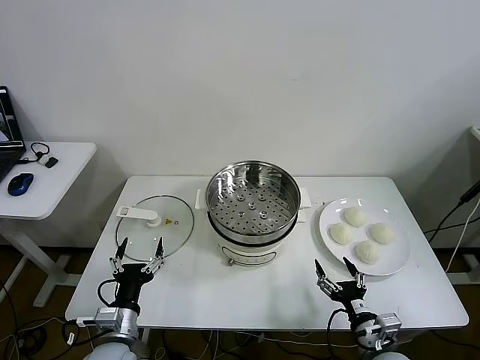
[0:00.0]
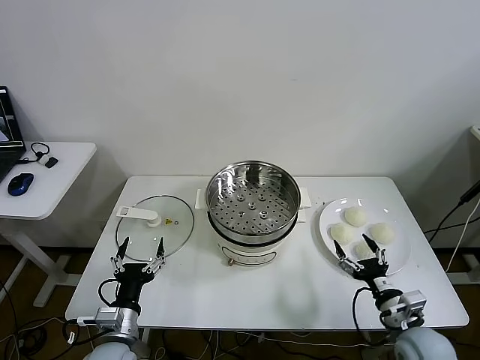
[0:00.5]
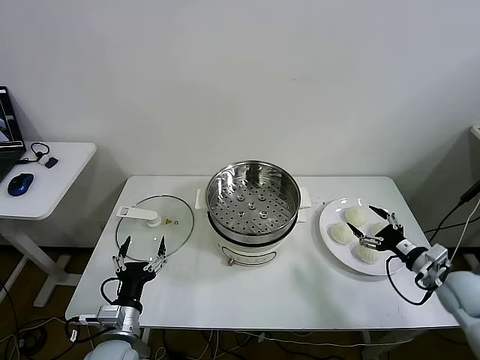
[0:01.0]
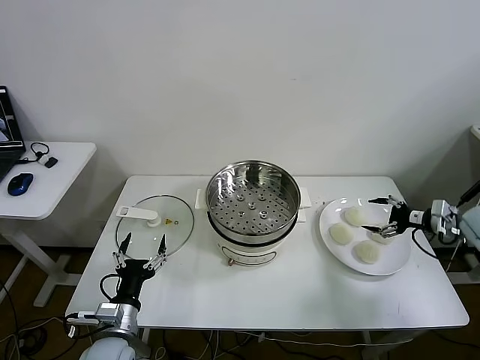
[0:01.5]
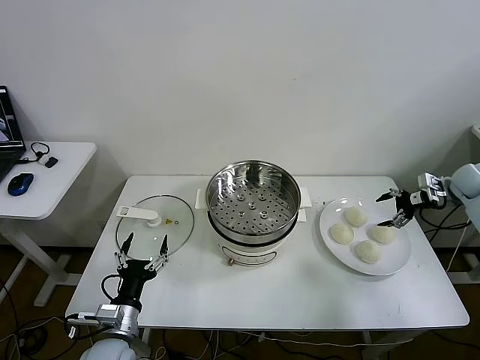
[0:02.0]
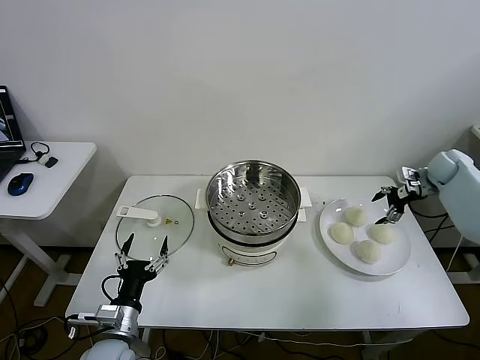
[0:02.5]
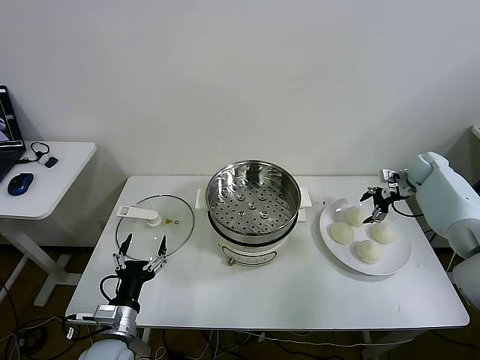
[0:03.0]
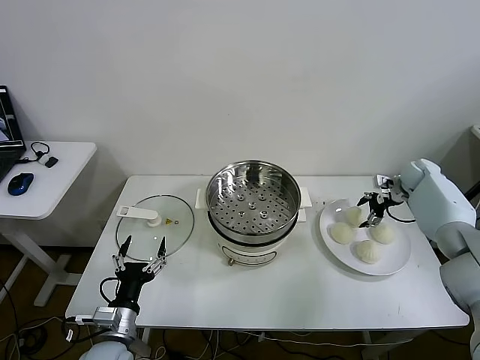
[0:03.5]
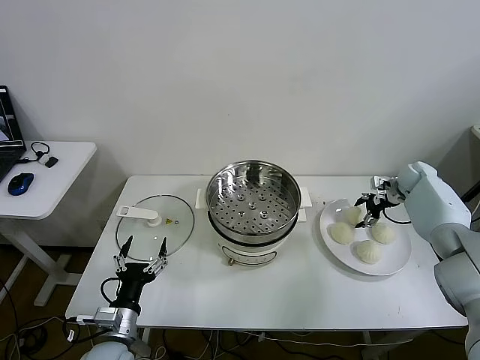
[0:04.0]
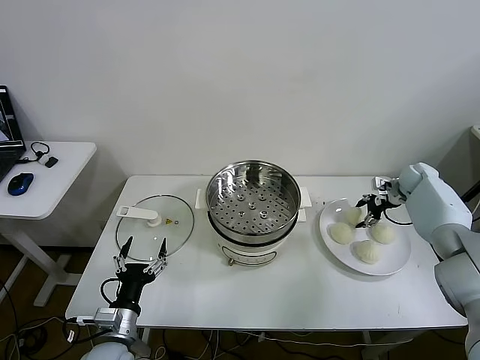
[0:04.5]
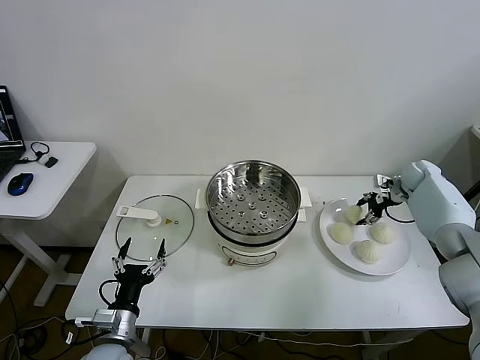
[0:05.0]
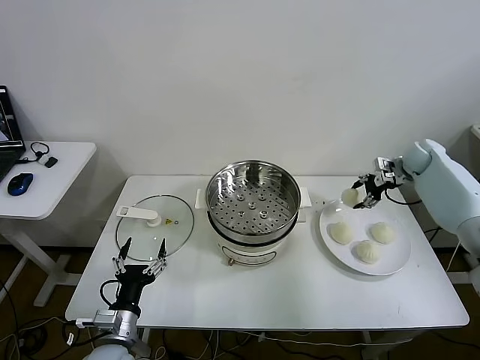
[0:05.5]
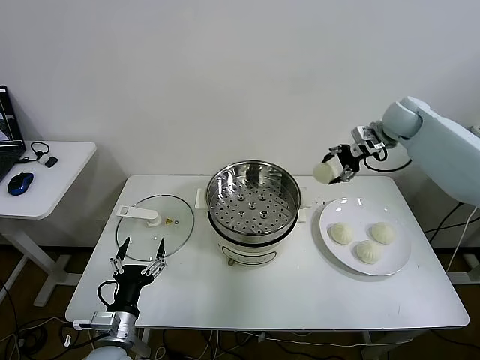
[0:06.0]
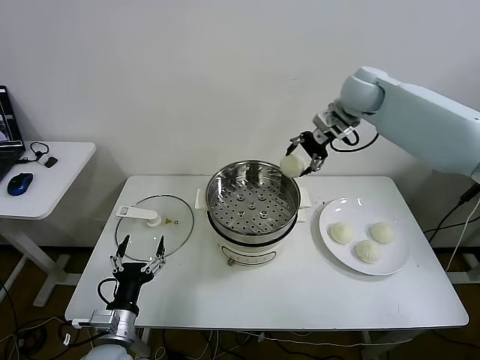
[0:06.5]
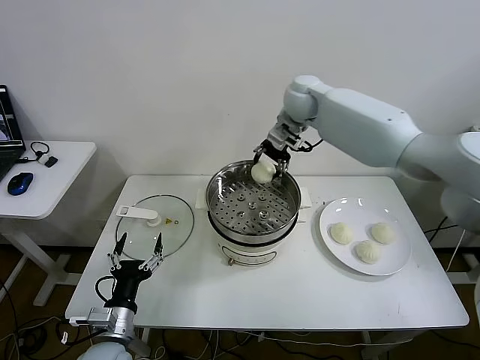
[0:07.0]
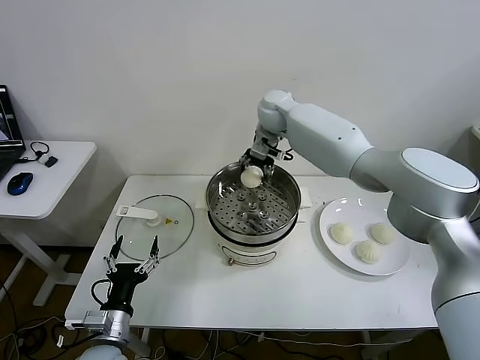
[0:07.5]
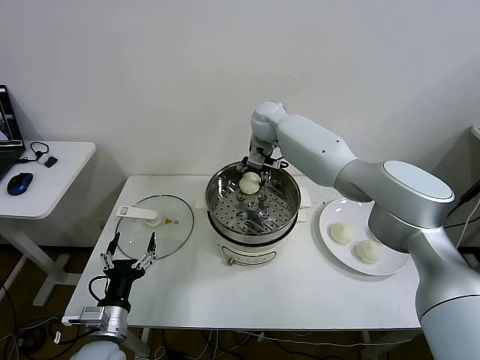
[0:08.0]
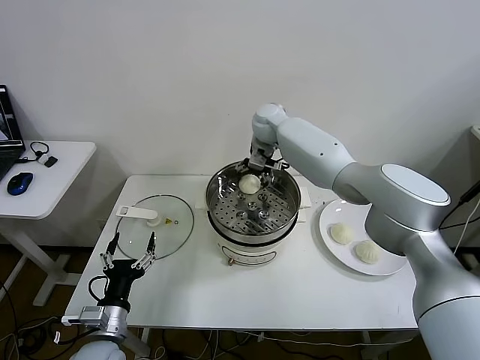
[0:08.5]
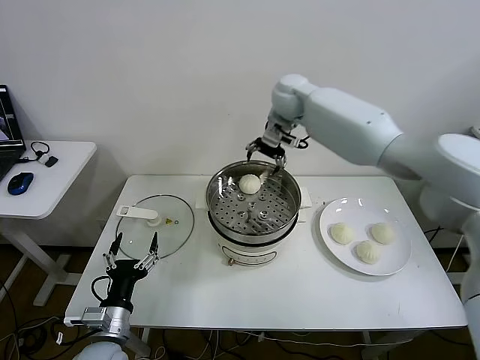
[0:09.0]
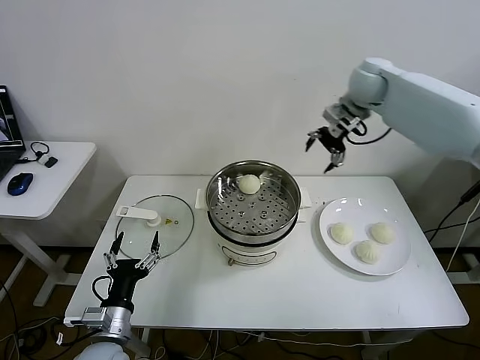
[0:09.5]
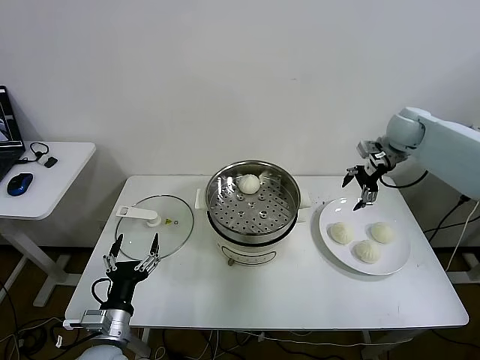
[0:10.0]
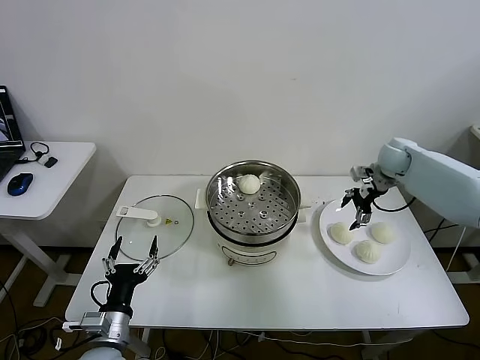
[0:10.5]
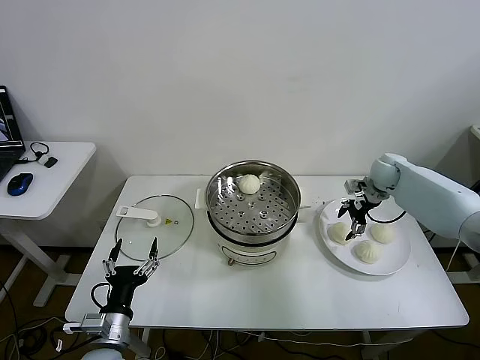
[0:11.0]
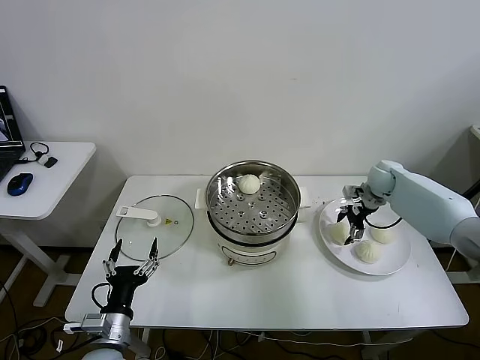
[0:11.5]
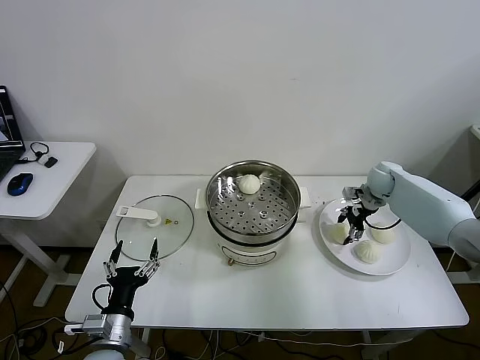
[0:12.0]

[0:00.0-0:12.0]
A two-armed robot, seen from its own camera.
Task of the whole recording: take steamed baozi put them in steamer.
Step, 0:00.0 to 0:04.5: Grasp the baozi in the plate with right gripper.
Step, 0:05.0 to 0:08.5: Place the baozi on the steamer with right gripper.
Step, 0:09.0 to 0:12.0: Grasp the baozi in the plate with right gripper.
0:02.0 to 0:04.0: The right gripper shifts approximately 10 cm to the left, downward and forward.
0:04.0 to 0:06.0: The right gripper moves upward and to the left, about 25 cm, and closes up.
0:06.0 to 0:08.0: The right gripper shifts approximately 30 cm to the left.
0:08.0 to 0:10.0: The right gripper moves to the right, some 35 cm, and opens up.
0:10.0 to 0:12.0: The right gripper is displaced downward by roughly 15 cm, and closes its fingers.

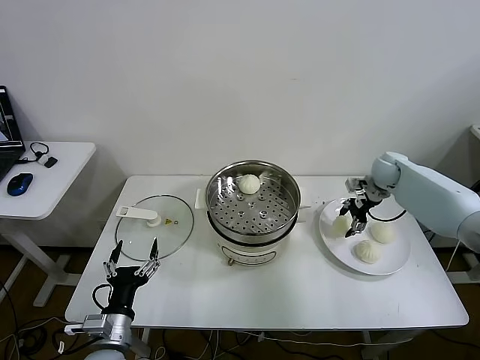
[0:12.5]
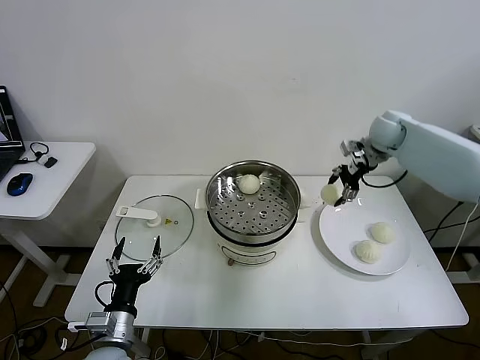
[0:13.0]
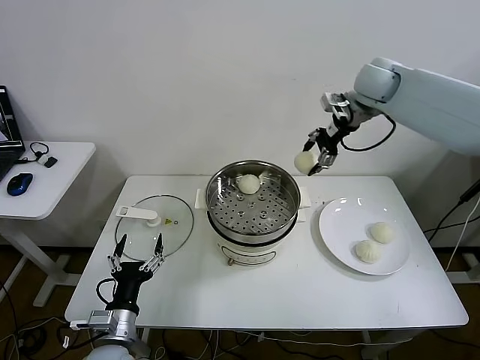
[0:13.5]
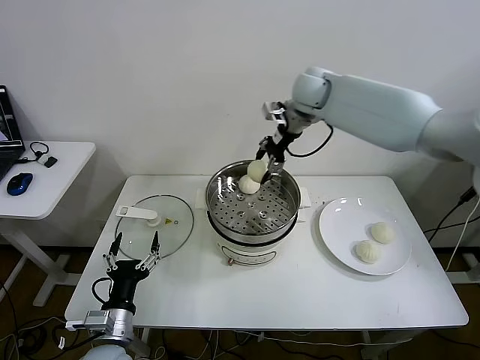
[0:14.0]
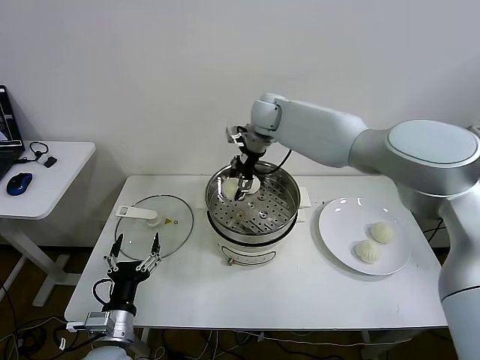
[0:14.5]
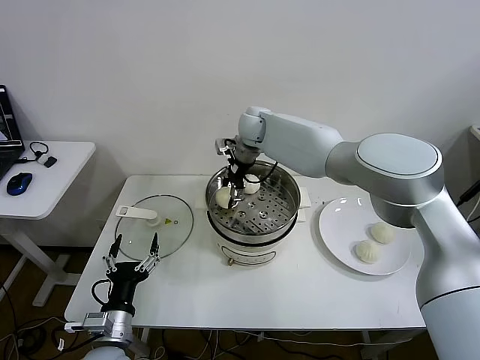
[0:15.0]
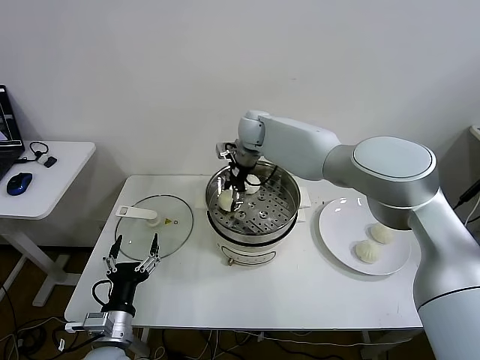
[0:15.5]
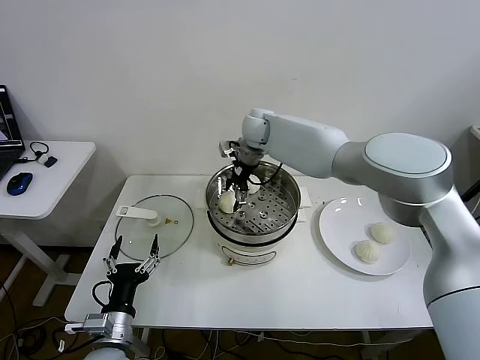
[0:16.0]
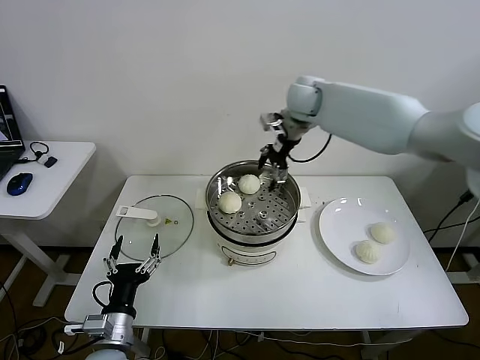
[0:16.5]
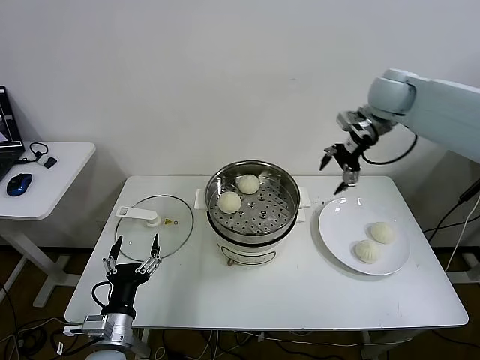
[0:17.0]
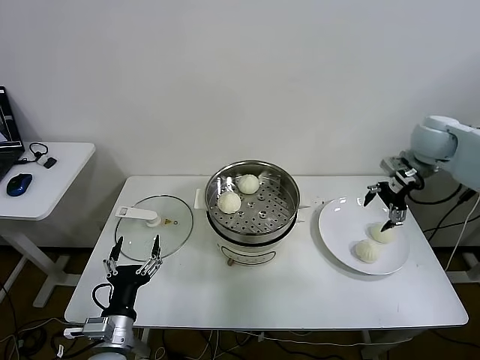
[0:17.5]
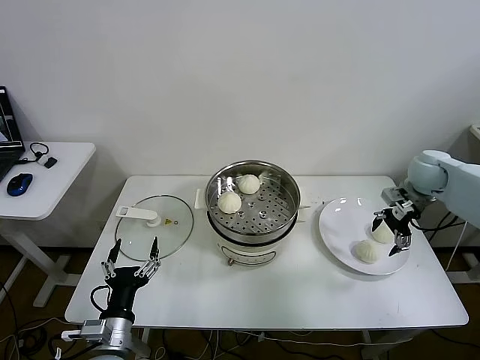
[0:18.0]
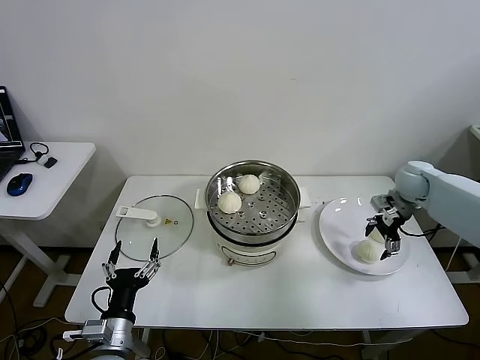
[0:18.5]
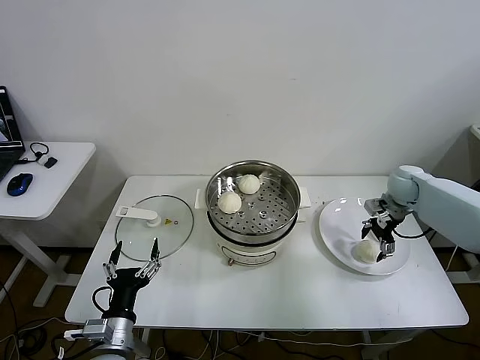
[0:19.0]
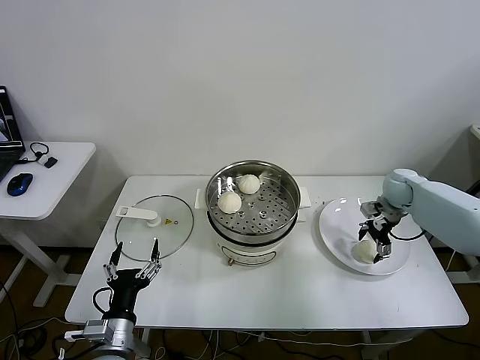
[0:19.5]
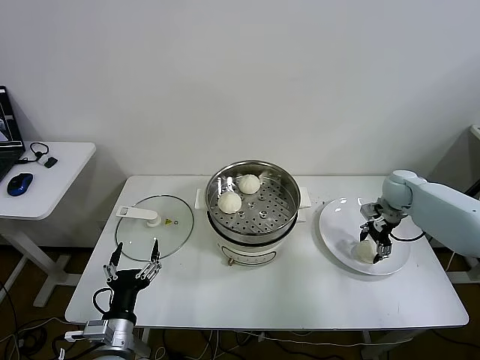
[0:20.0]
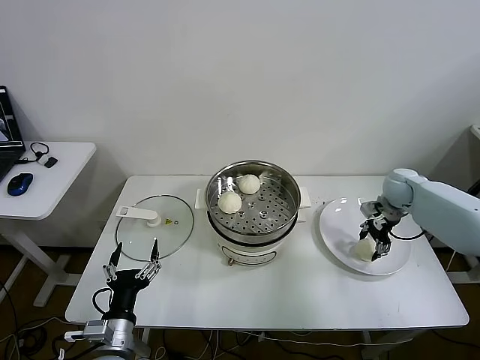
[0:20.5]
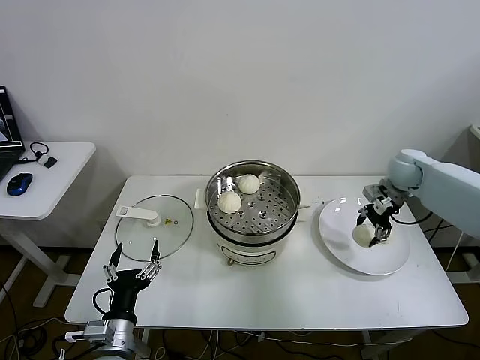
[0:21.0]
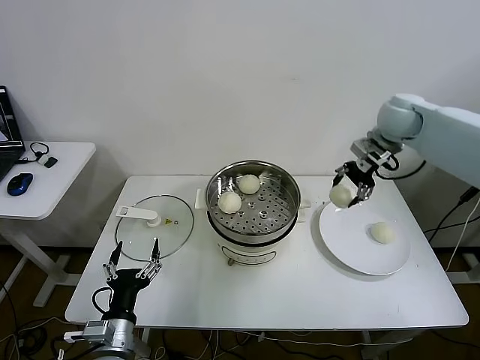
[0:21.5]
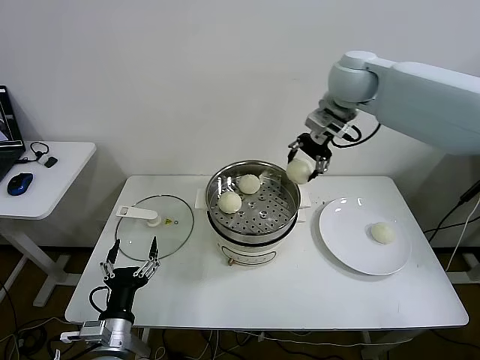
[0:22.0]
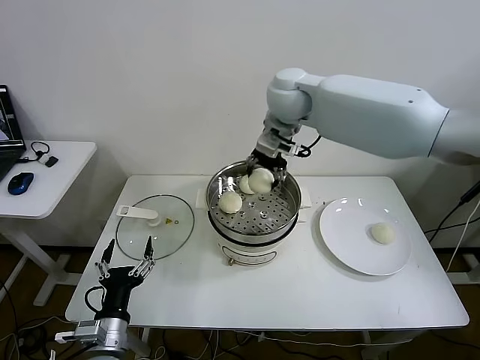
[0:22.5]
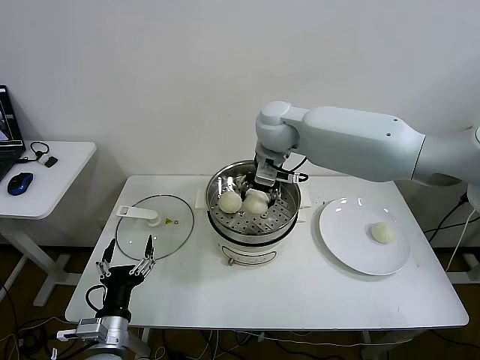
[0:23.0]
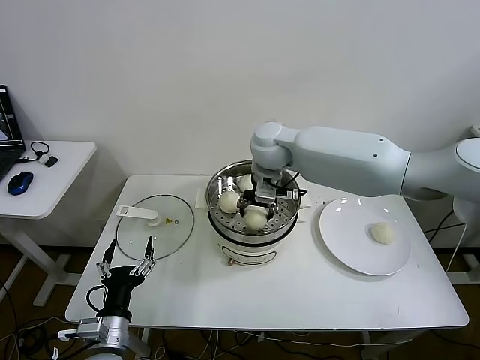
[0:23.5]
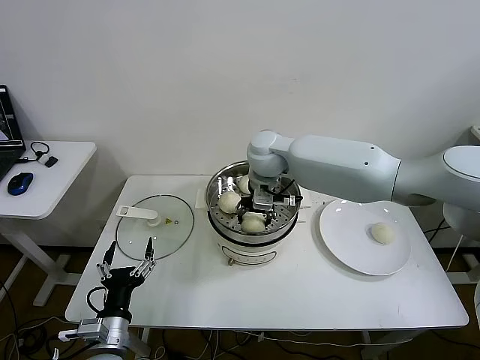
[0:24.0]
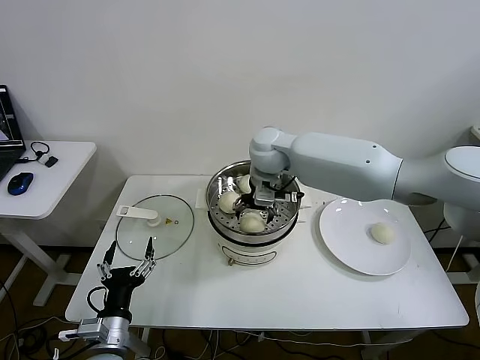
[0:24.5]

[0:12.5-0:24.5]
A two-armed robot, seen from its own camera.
Task of the whole recording: take steamed baozi put them in steamer.
Step, 0:12.5 to 0:16.0: Place the baozi on the steamer with right gripper.
Step, 0:16.5 to 0:20.0: Grasp the baozi in the plate with right gripper.
0:12.5 to 0:14.5: The right gripper shifts roughly 35 cm to the left.
0:14.5 to 0:16.5: The right gripper shifts approximately 10 cm to the right and upward, and opens.
0:16.5 to 0:18.5: The right gripper heads to the right and downward, covering roughly 35 cm.
0:18.5 to 0:20.5: The right gripper closes.
0:20.5 to 0:22.5: The right gripper travels to the left and upward by about 40 cm.
0:22.5 to 0:24.5: The right gripper goes some 10 cm downward, and opens its fingers.

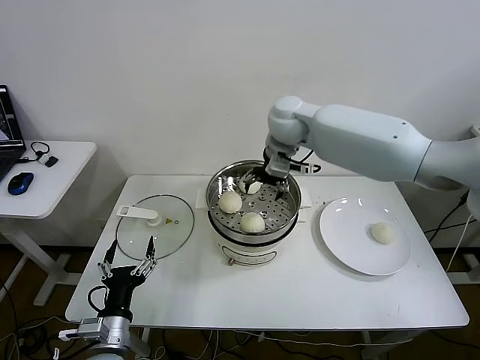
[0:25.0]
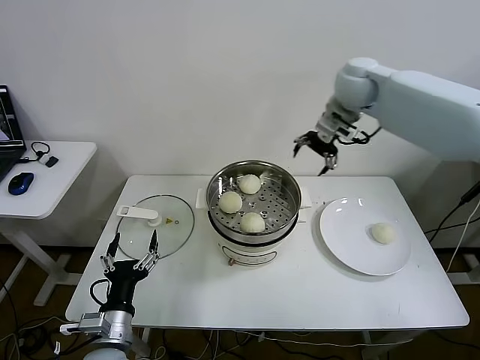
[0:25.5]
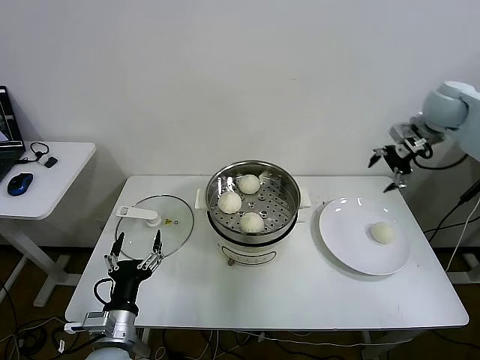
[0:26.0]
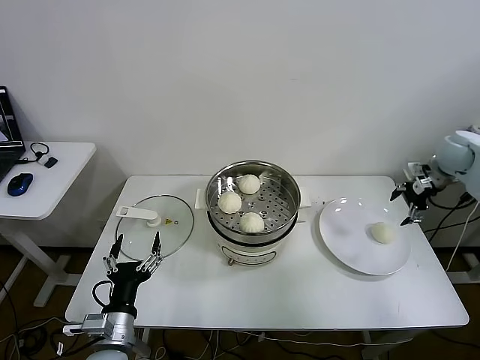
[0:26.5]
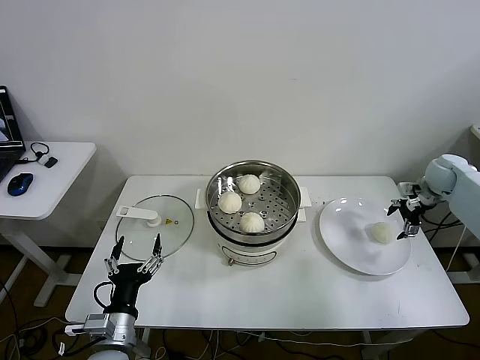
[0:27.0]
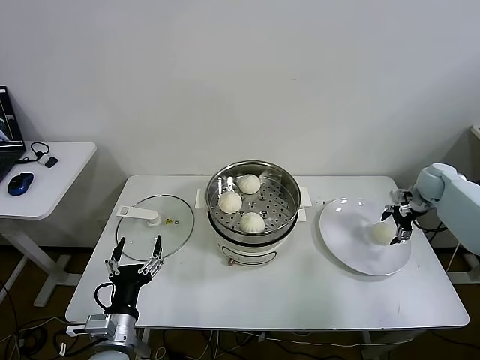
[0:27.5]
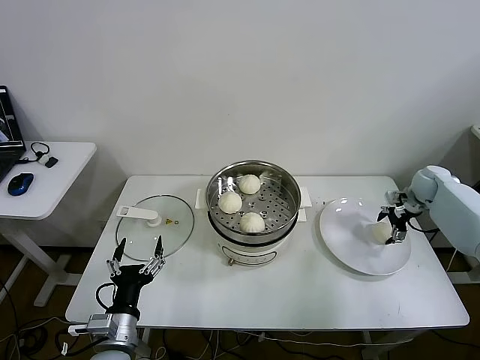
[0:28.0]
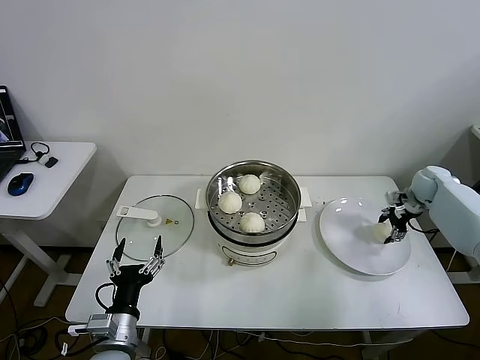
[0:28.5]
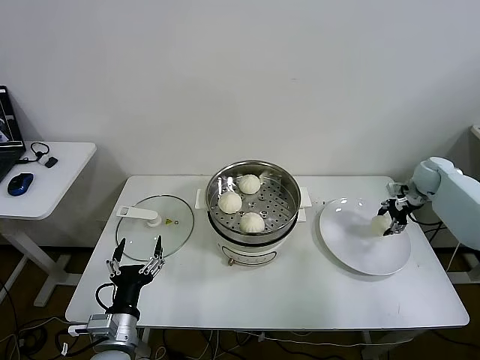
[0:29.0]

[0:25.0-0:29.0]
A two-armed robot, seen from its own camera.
Task of the whole recording: take steamed baozi put them in steamer.
Step, 0:25.0 to 0:28.5: Grasp the baozi in the plate with right gripper.
0:25.0 to 0:27.0: The right gripper goes roughly 40 cm to the right.
0:27.0 to 0:29.0: The right gripper closes up.
